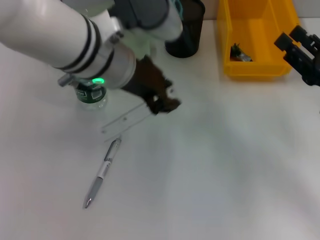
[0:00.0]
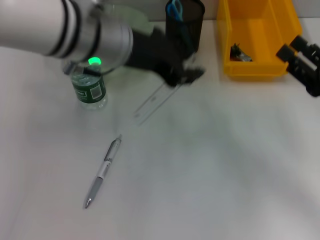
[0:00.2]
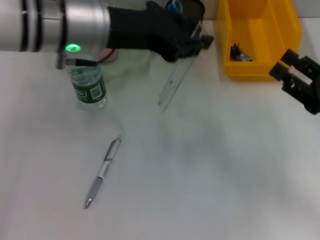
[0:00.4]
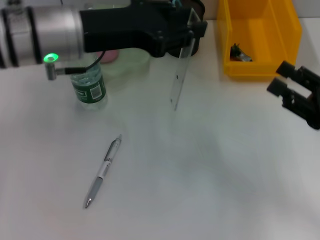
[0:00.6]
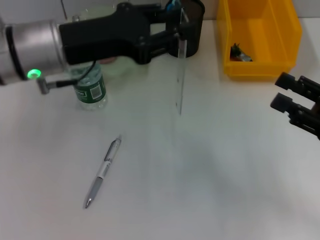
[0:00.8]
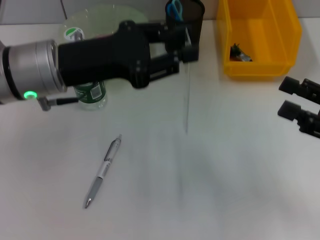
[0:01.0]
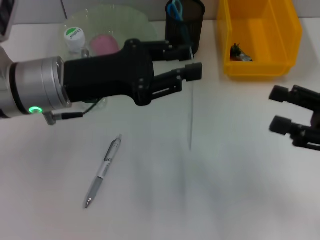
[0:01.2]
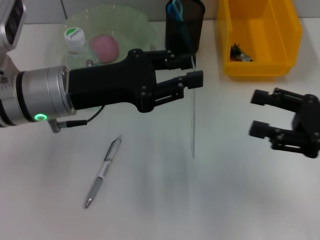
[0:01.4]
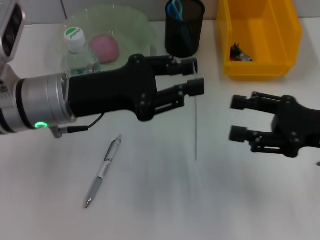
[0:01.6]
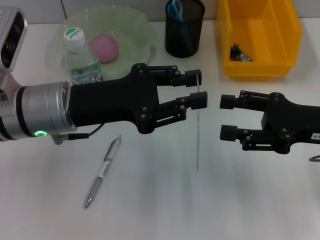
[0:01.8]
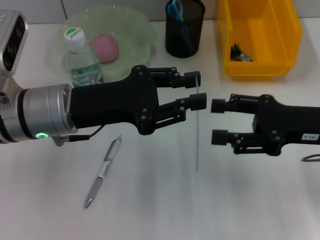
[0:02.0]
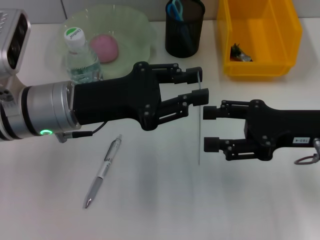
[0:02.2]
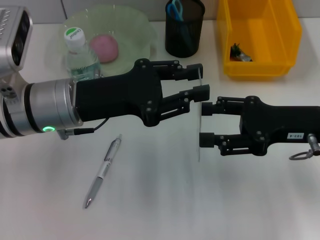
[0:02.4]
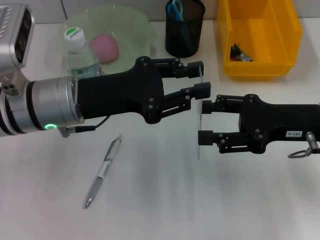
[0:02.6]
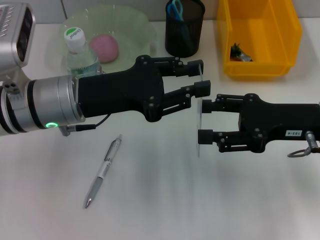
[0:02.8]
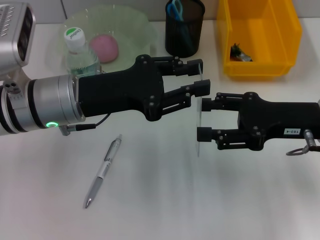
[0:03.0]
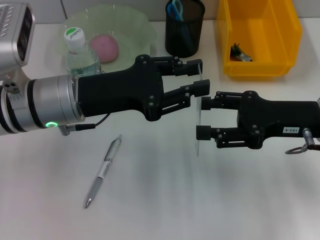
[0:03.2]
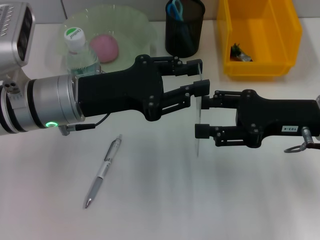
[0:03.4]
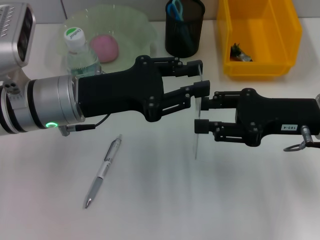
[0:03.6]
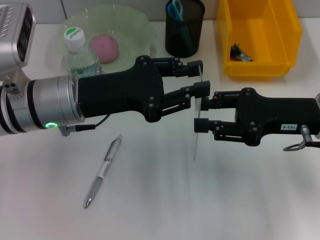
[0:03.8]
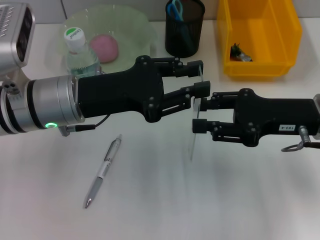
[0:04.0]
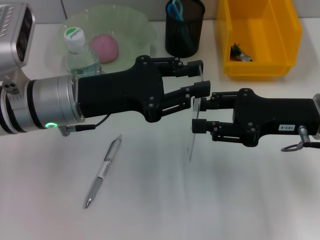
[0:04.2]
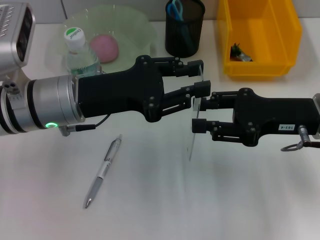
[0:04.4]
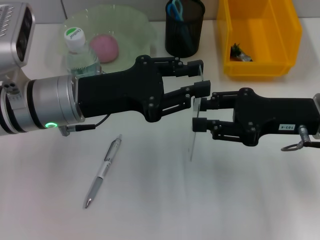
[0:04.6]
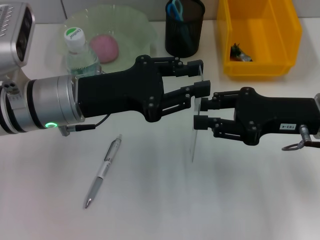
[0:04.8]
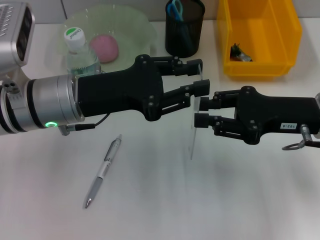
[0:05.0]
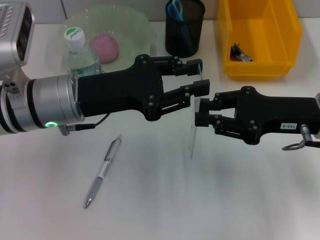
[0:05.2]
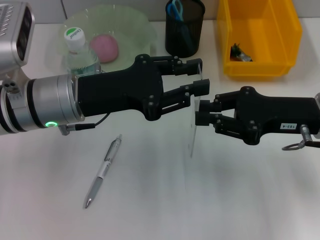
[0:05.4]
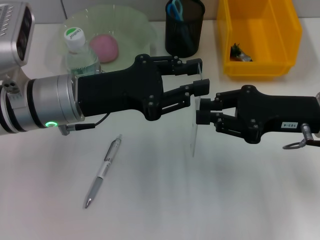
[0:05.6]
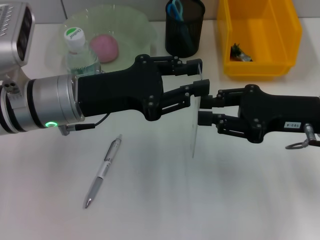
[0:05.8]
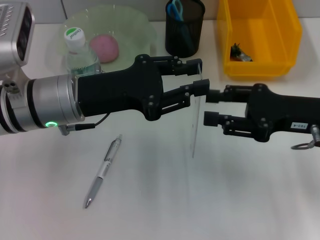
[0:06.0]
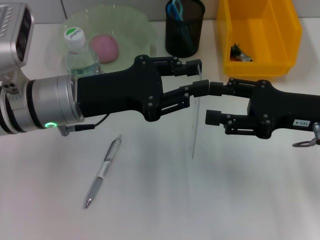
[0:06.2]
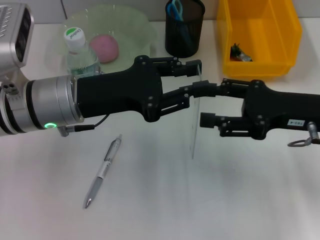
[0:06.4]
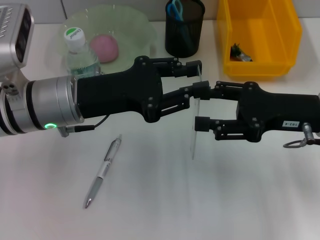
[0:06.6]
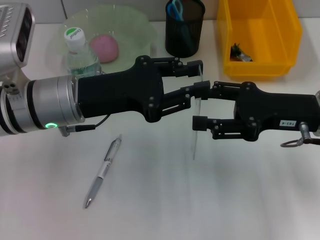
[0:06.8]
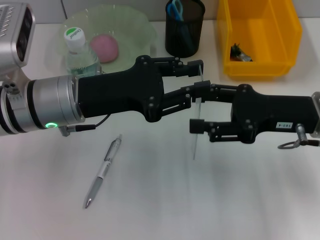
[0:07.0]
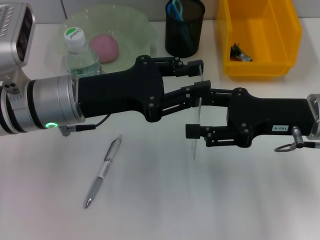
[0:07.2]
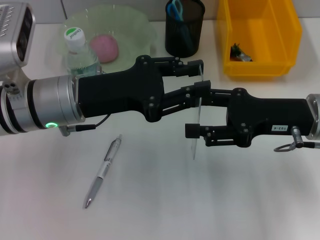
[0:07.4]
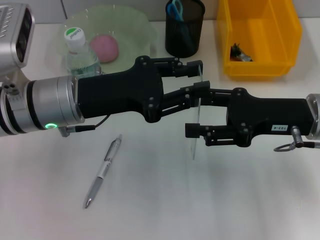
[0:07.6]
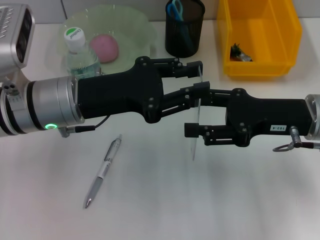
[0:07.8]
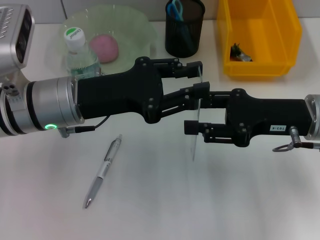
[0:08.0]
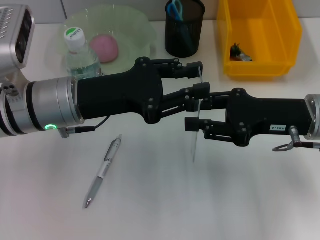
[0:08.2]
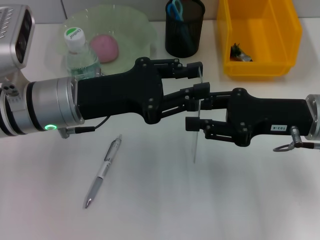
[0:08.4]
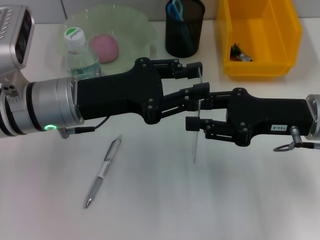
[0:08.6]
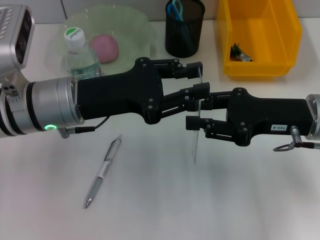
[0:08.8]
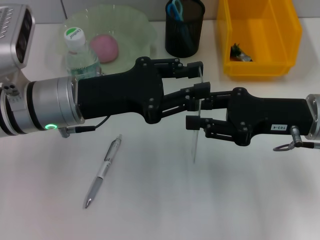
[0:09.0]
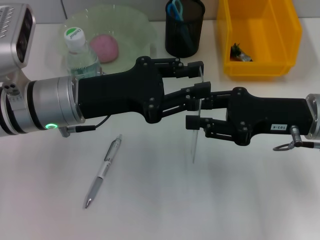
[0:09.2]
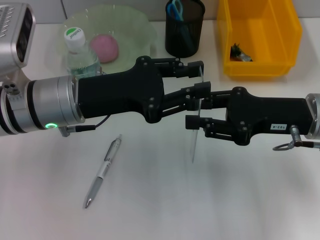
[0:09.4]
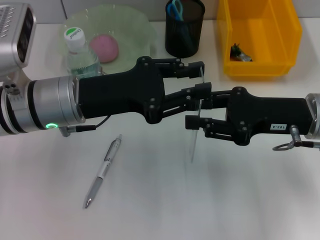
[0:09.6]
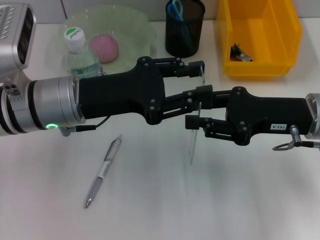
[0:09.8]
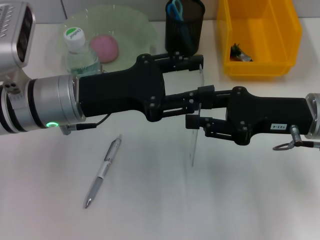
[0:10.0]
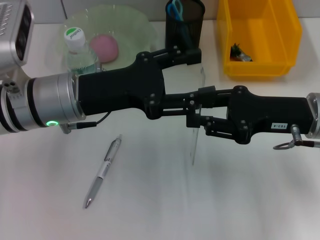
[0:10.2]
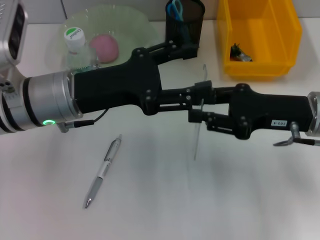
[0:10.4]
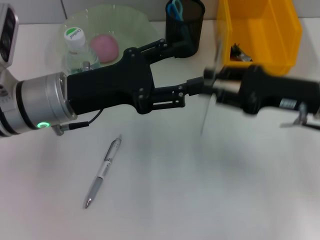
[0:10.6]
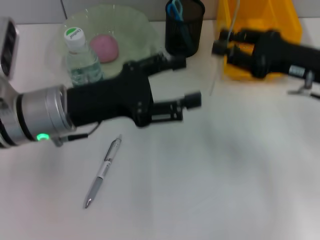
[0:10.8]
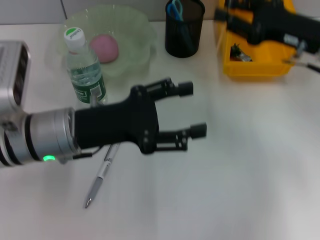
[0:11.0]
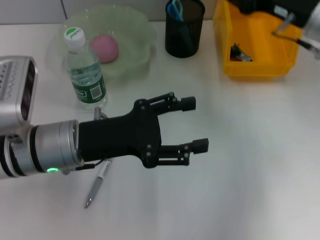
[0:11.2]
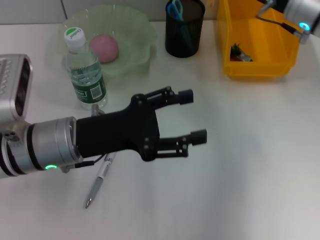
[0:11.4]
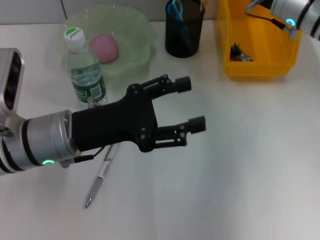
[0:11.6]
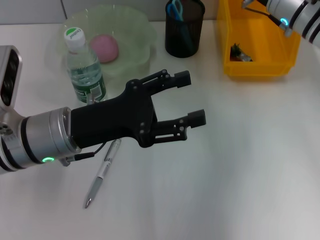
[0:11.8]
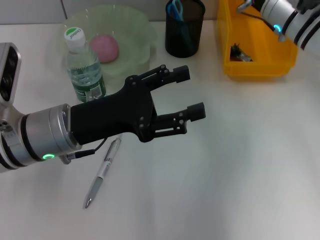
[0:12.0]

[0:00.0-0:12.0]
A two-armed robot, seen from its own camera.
Step, 0:00.0 to 0:10.2: Pass the ruler from the left hand to the right hand.
0:00.0 to 0:01.6: The left gripper shifts about 10 cm to the left and downward.
0:01.6 to 0:03.0: There are only small adjustments of the grippers.
0:03.0 to 0:04.4: The right gripper closes up.
0:04.4 to 0:06.0: The grippers make only small movements.
0:06.0 to 0:07.6: The right gripper opens its fingers.
0:07.6 to 0:09.0: The right gripper closes its fingers.
0:09.0 to 0:10.4: The left gripper opens up.
0:10.4 to 0:12.0: The right gripper heads forward, covering about 15 cm.

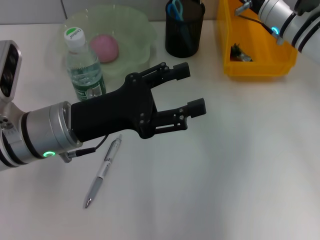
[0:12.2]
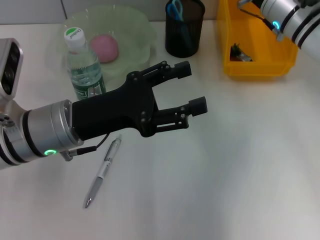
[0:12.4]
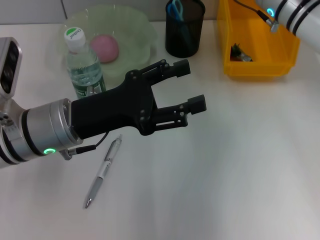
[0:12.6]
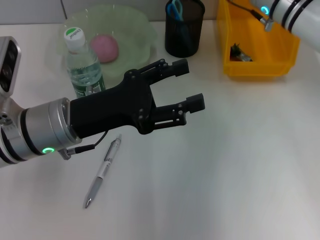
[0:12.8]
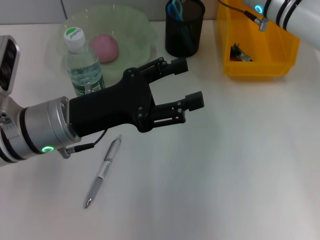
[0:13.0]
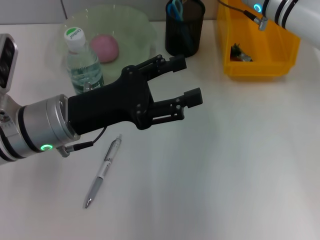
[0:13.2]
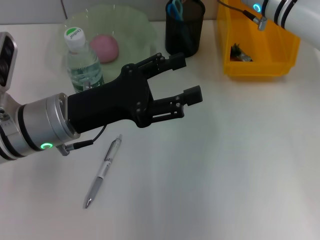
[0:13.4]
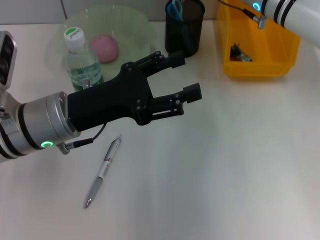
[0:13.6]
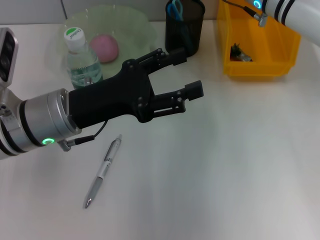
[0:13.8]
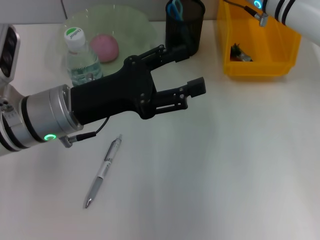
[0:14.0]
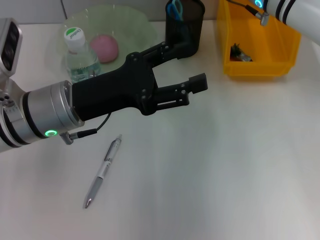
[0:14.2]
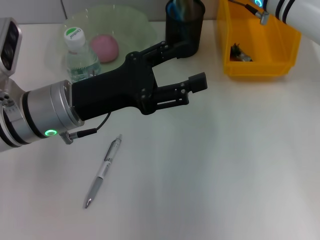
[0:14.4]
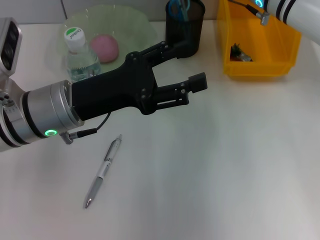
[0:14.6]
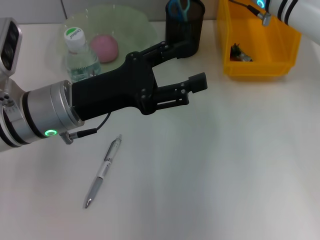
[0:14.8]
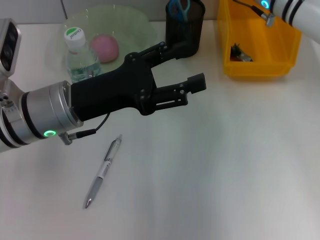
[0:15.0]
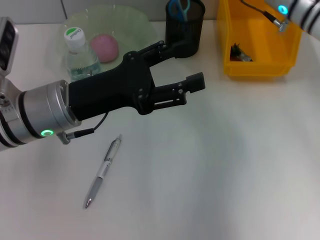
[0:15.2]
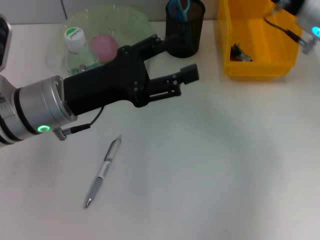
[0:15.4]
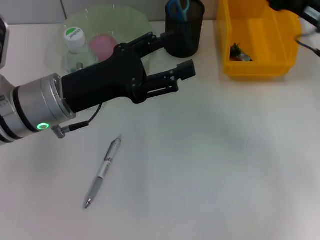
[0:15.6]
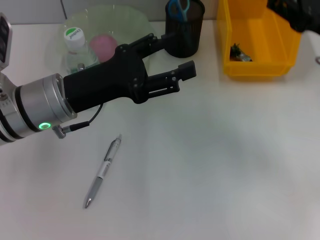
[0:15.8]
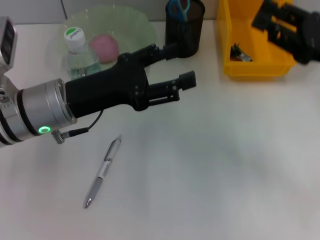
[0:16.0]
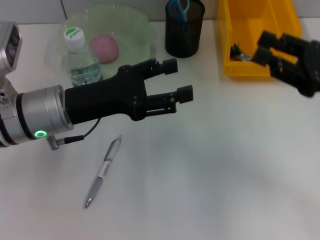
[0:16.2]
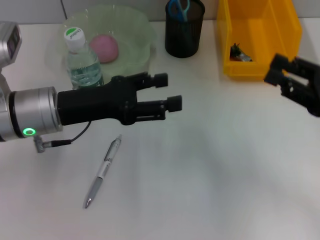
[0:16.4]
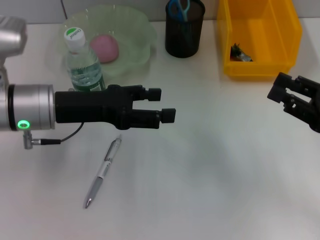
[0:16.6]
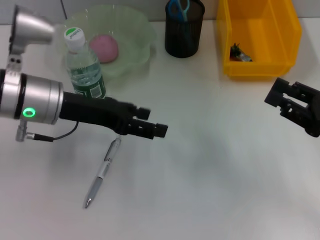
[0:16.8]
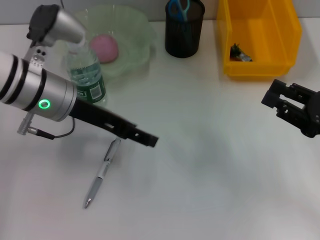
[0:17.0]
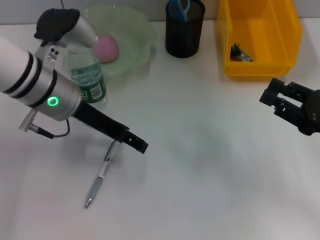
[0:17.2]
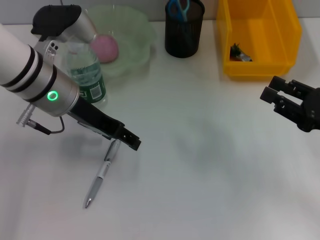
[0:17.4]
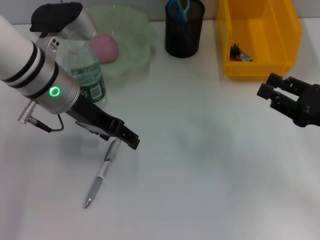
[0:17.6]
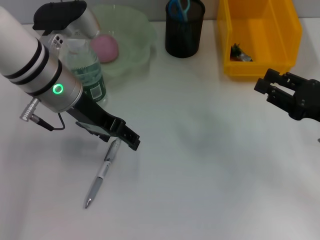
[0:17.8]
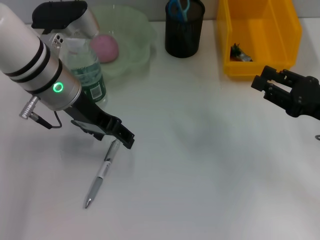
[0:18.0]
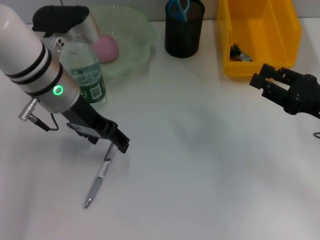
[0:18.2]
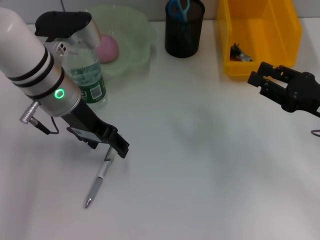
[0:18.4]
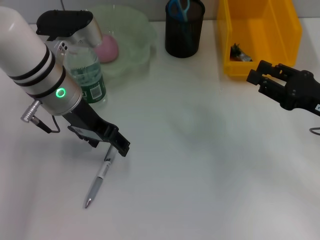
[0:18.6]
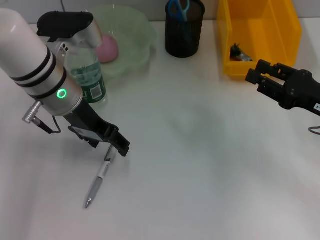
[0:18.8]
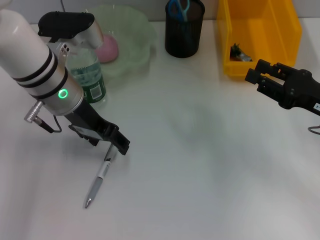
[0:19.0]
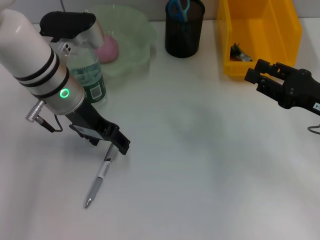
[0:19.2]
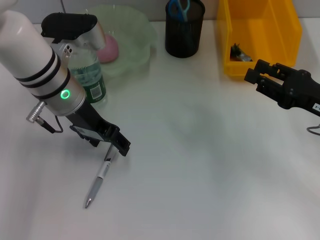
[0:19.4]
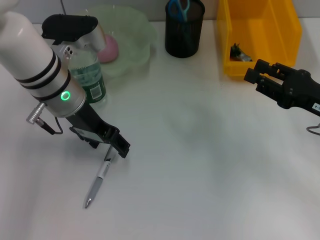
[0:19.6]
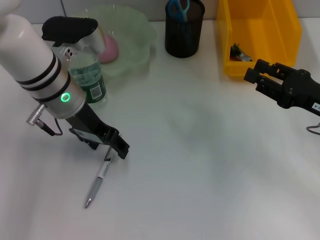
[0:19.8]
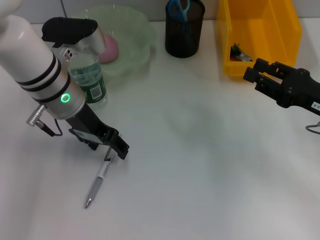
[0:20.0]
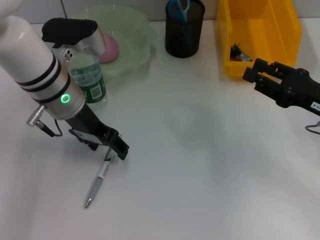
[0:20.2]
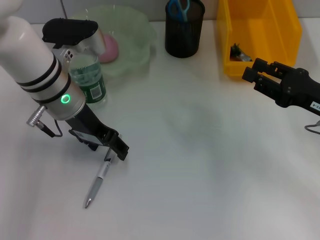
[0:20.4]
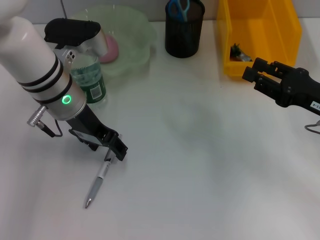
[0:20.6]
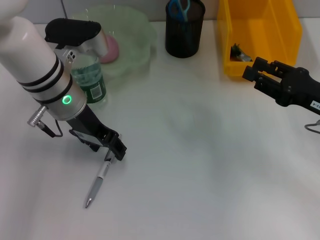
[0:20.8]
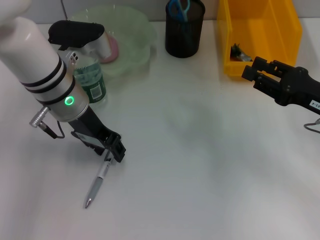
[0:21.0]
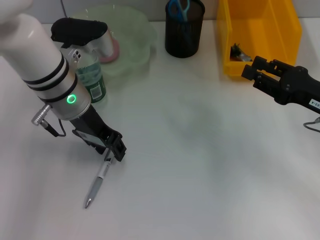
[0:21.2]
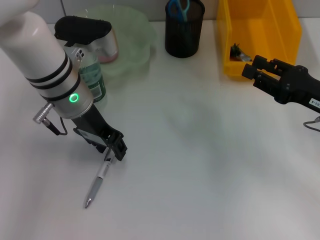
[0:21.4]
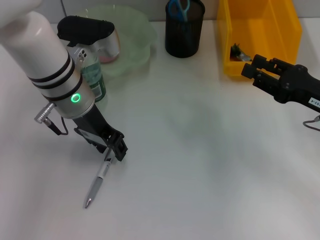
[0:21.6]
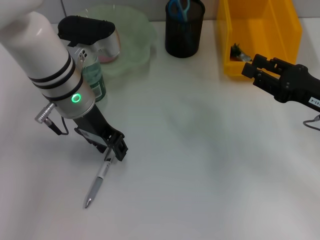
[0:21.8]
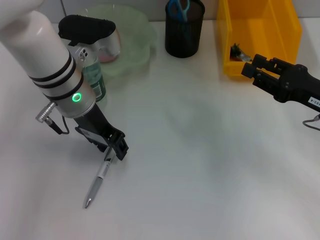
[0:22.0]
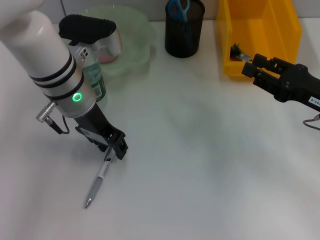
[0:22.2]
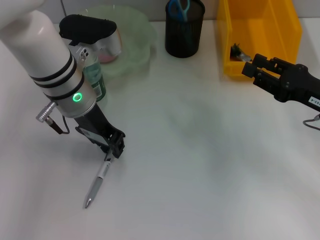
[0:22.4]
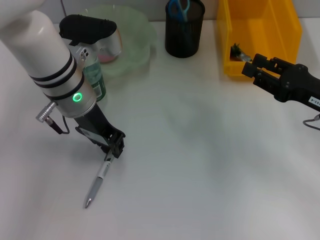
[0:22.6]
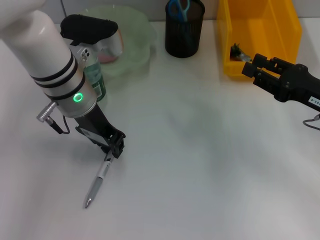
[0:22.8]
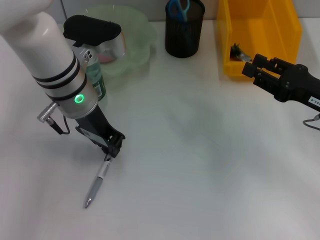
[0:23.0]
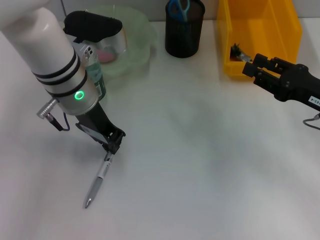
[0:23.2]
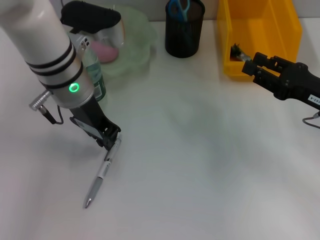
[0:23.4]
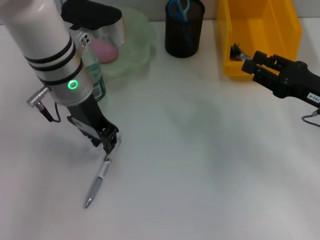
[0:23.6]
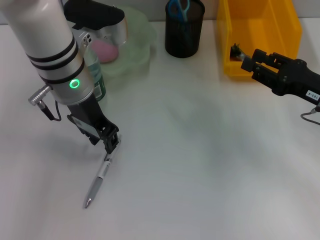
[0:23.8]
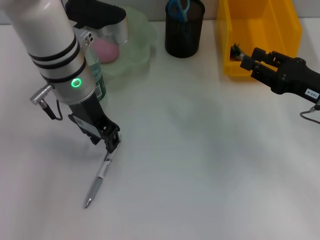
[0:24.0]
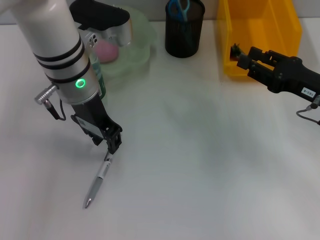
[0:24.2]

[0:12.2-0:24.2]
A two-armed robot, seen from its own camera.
Step, 0:12.2 to 0:15.2: Place the ruler into the pen holder with the right hand.
0:12.2 to 0:15.2: The grippers make only small movements.
0:15.2 to 0:16.6: The right gripper travels backward and to the right by some 25 cm.
0:16.6 to 0:18.2: The left gripper travels forward by some 5 cm.
0:18.2 to 0:19.8: The grippers make only small movements.
0:19.8 to 0:21.2: Neither gripper changes place.
0:21.2 to 0:22.6: The left gripper closes.
0:22.6 to 0:24.2: There are only small adjustments of the grippers.
